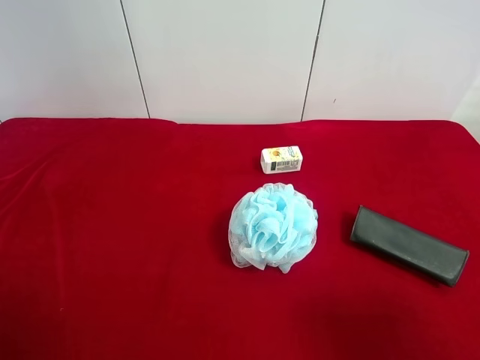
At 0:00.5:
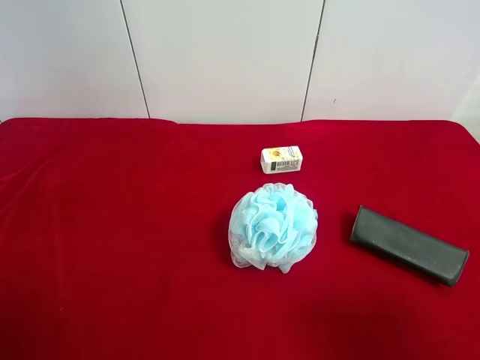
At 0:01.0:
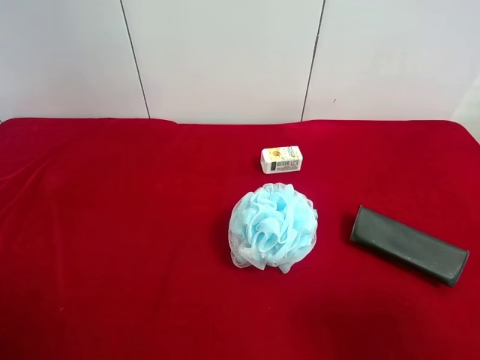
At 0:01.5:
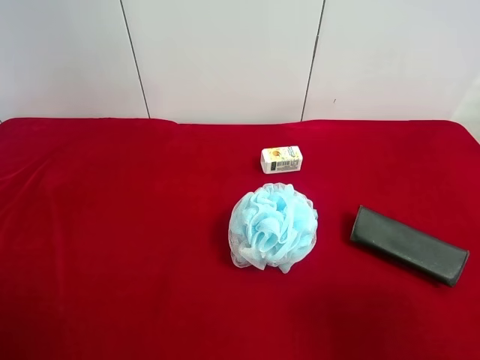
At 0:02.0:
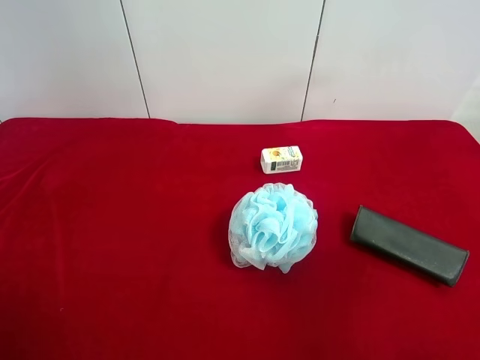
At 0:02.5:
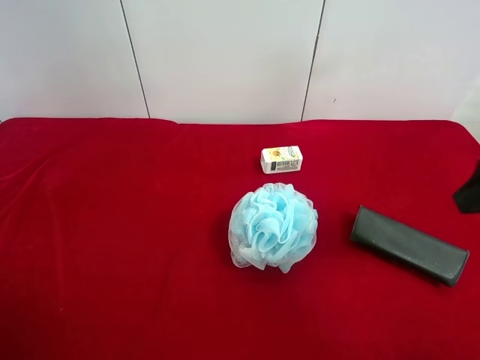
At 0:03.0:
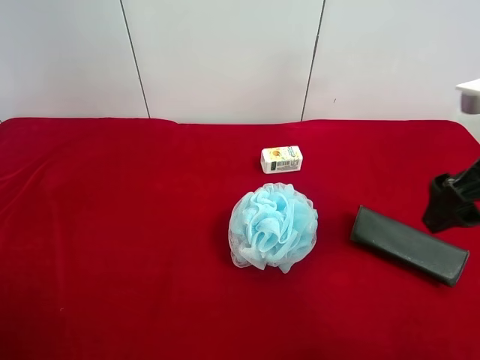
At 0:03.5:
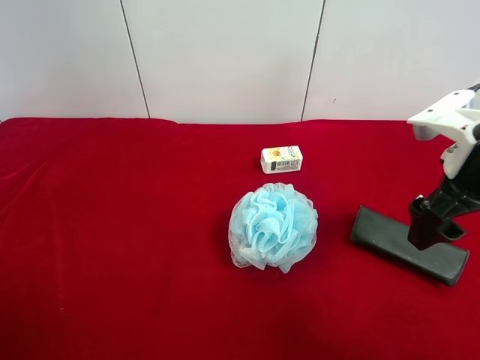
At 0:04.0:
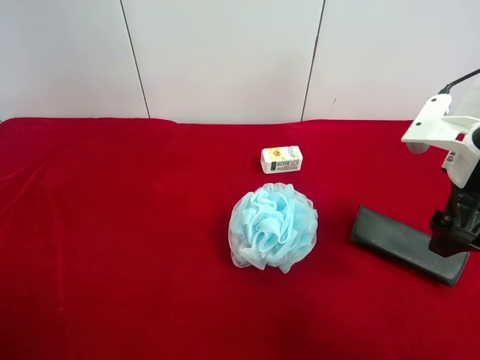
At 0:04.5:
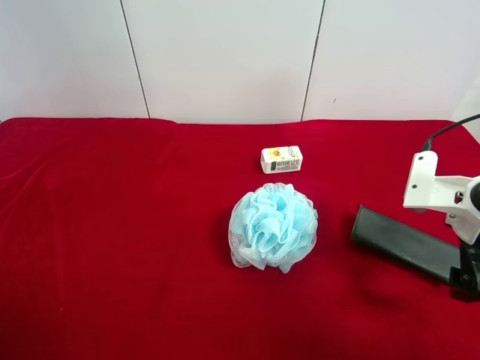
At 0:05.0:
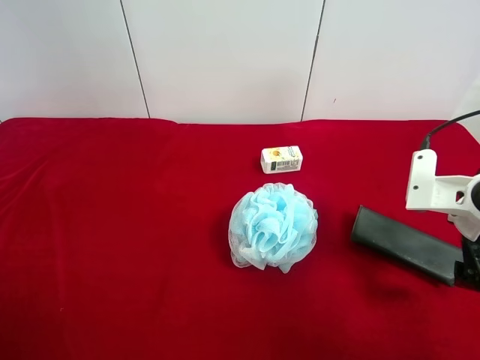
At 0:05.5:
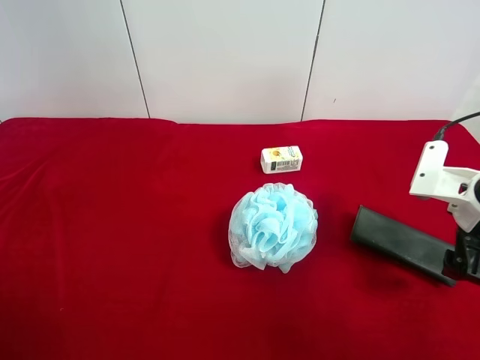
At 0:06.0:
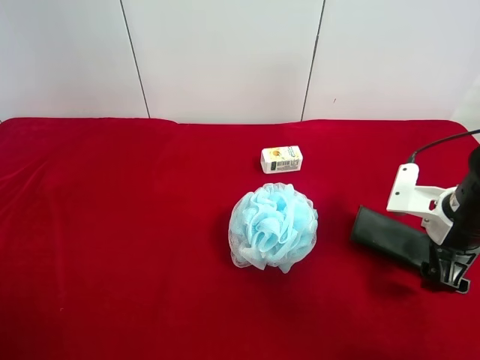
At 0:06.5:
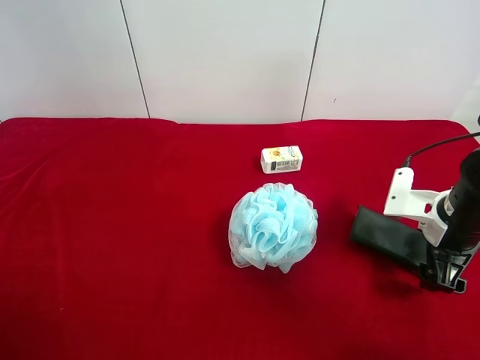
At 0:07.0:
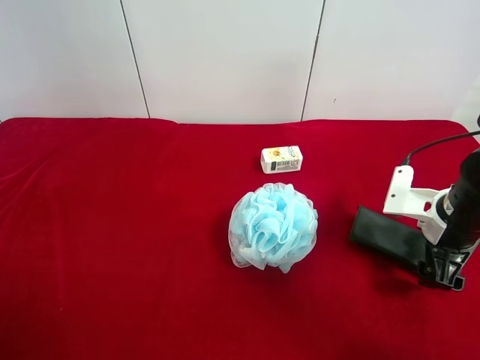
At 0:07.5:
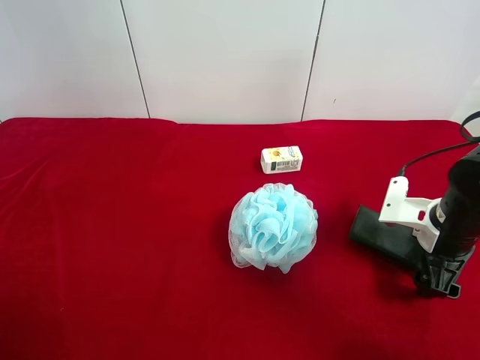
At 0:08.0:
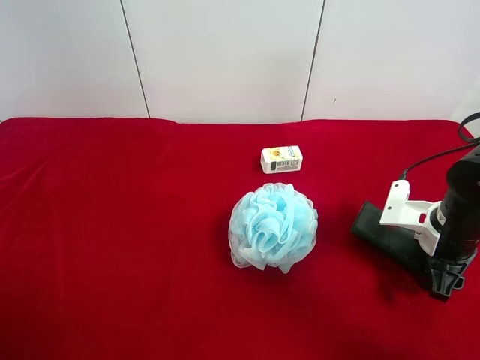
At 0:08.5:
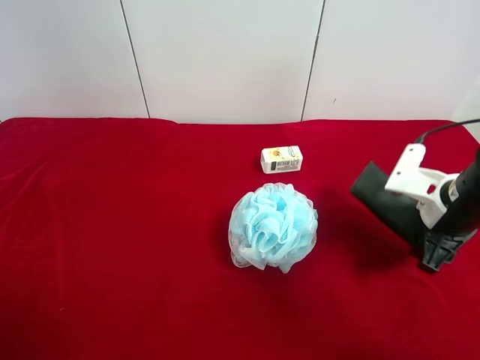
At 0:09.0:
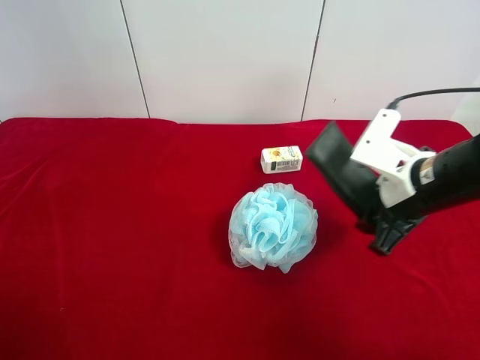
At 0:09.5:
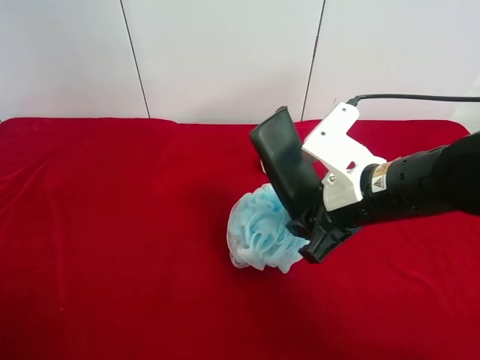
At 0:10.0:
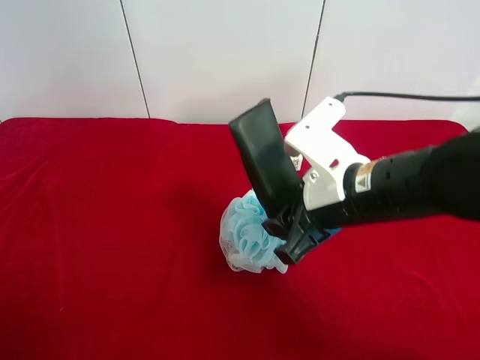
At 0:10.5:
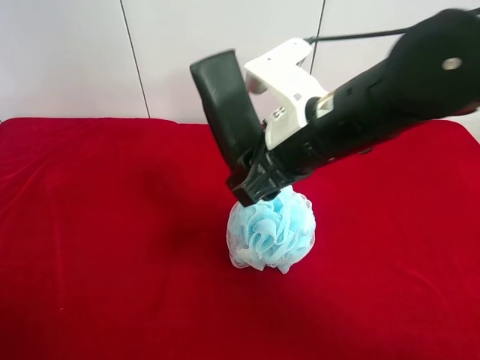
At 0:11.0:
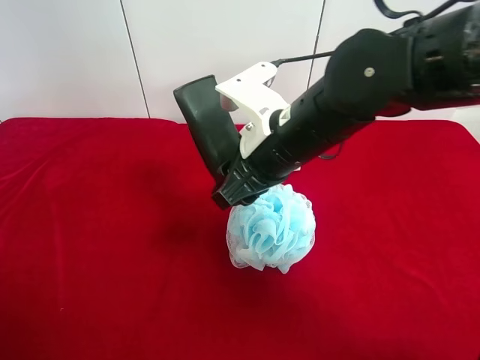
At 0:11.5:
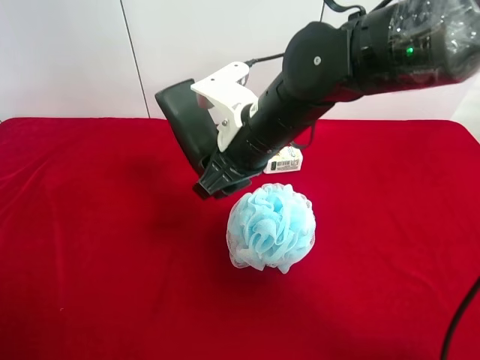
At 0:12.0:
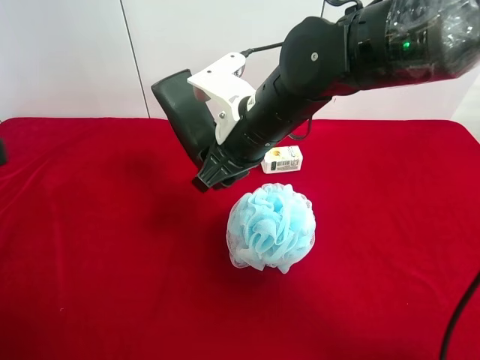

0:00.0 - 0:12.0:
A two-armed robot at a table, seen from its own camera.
Task of the whole recording: use the right gripper to pick up the item and transfer it from the right gripper to the left gripper.
Step, 0:00.0 - 0:07.5: Use the right gripper to grab the eyeglass case on the right side of the table.
0:02.0 - 0:04.0: The right gripper moves forward and downward, about 15 cm.
0:04.0 - 0:06.0: The right gripper is displaced downward by approximately 10 cm.
0:06.0 - 0:08.0: The right gripper closes.
0:08.0 - 0:10.0: The right gripper is displaced to the left and upward by about 20 cm.
0:10.0 - 0:12.0: The right gripper travels forward and to the left by some 10 cm; the left gripper heads forward, covering some 10 cm.

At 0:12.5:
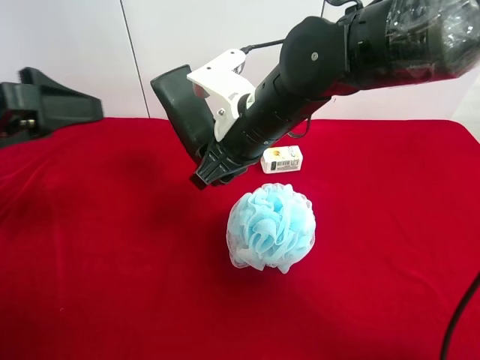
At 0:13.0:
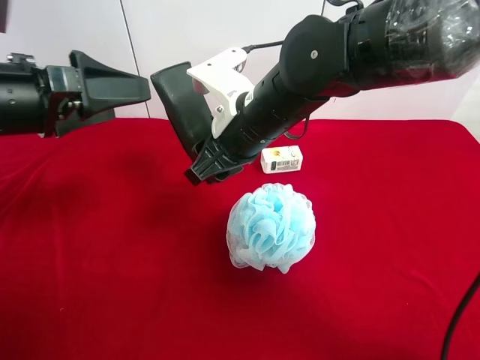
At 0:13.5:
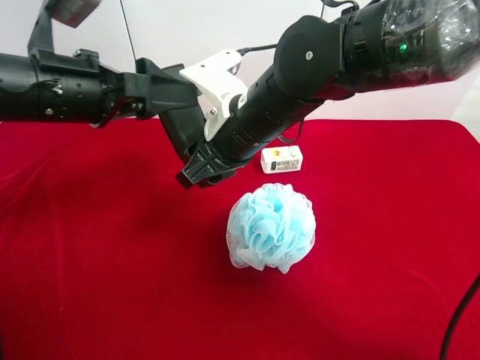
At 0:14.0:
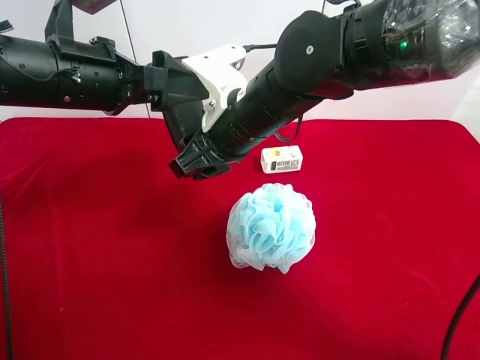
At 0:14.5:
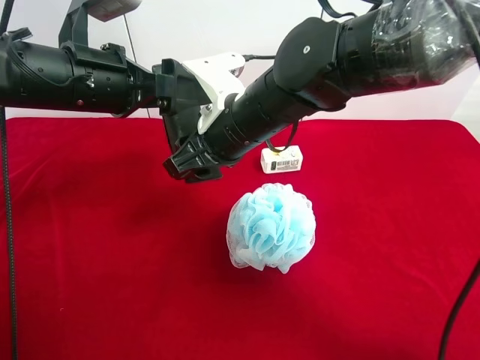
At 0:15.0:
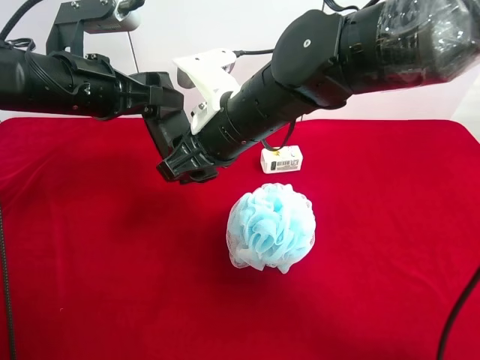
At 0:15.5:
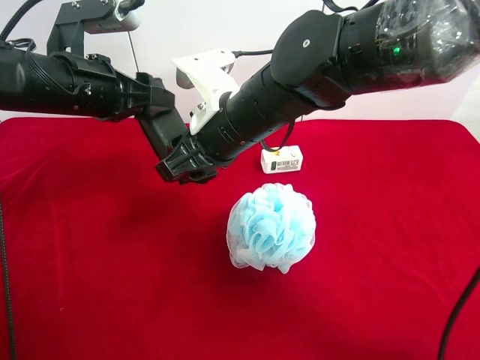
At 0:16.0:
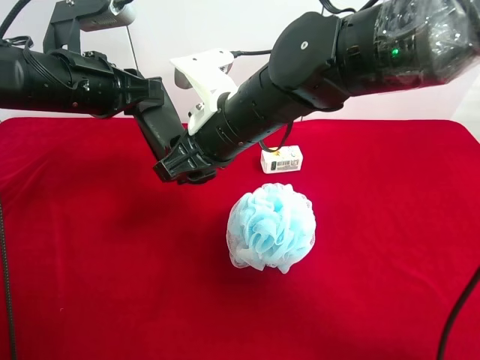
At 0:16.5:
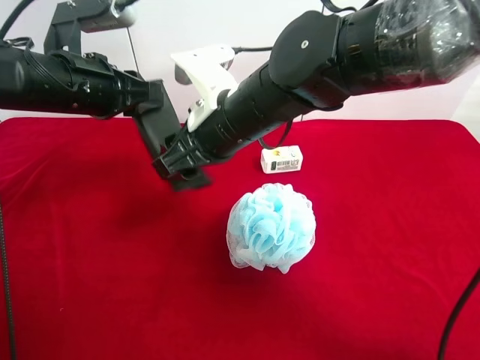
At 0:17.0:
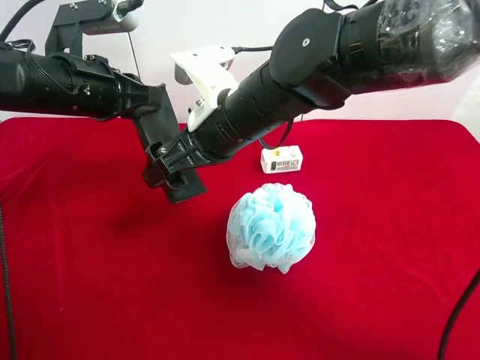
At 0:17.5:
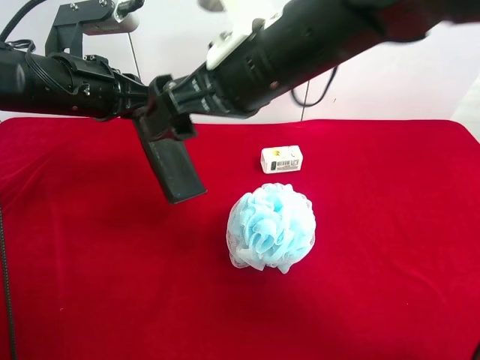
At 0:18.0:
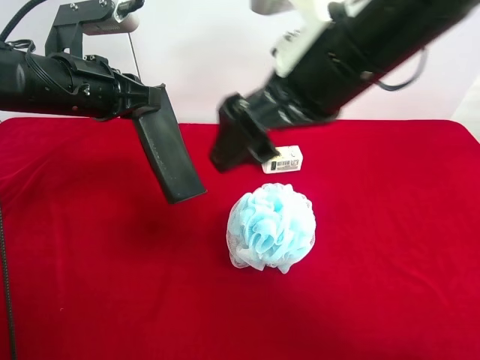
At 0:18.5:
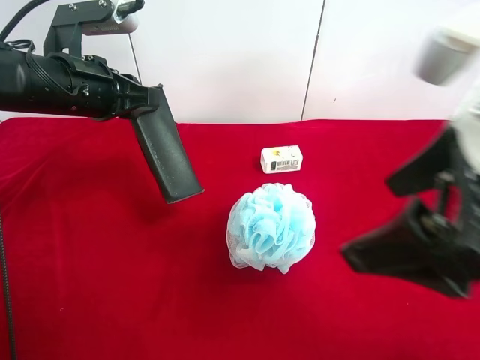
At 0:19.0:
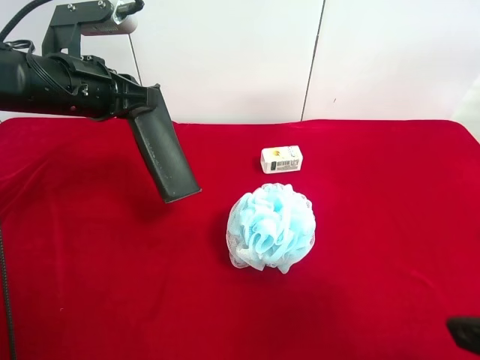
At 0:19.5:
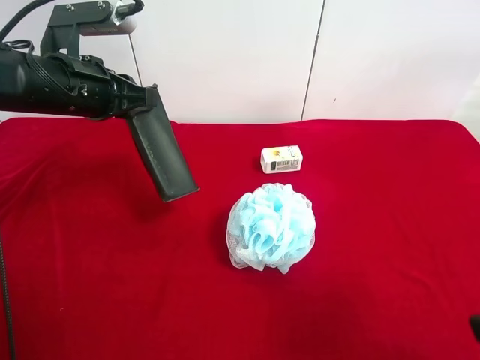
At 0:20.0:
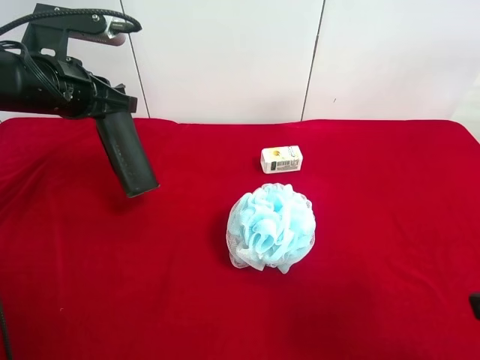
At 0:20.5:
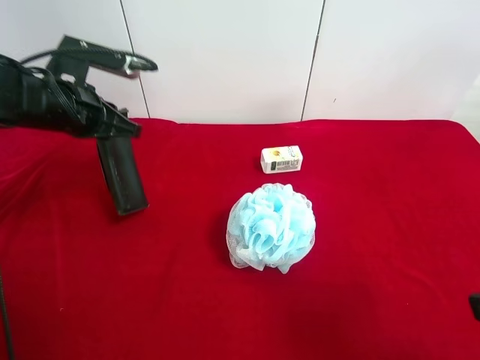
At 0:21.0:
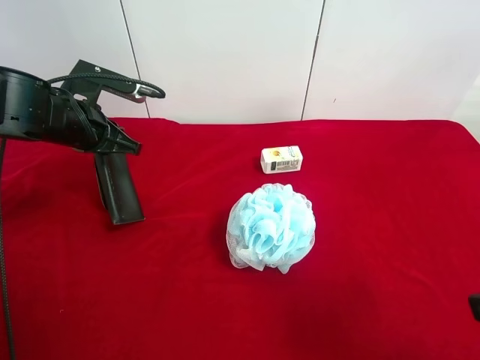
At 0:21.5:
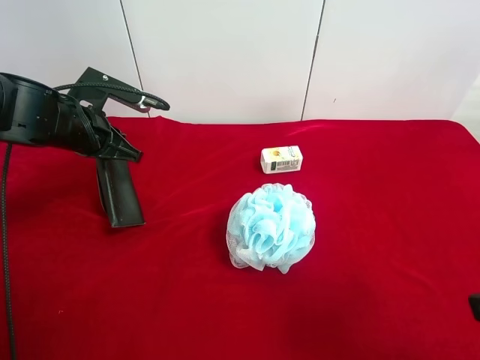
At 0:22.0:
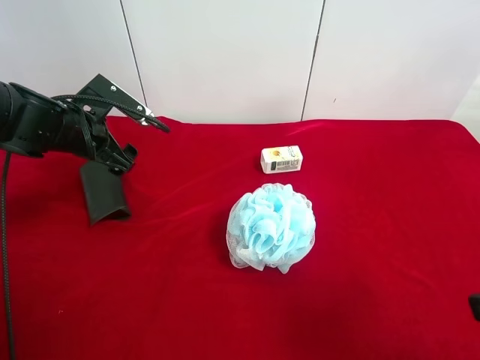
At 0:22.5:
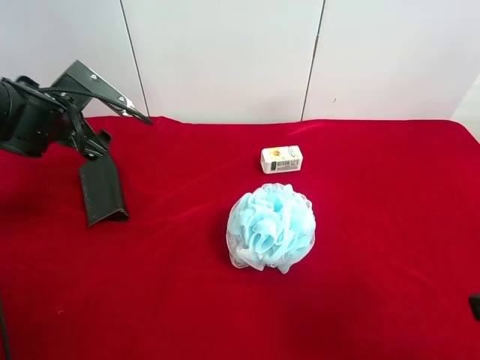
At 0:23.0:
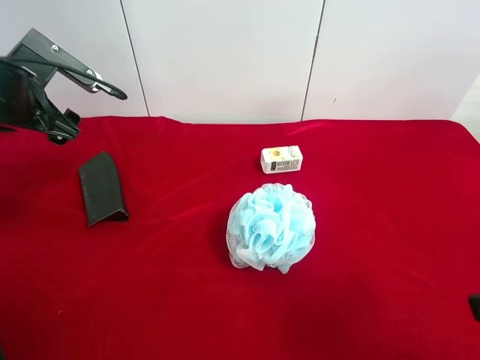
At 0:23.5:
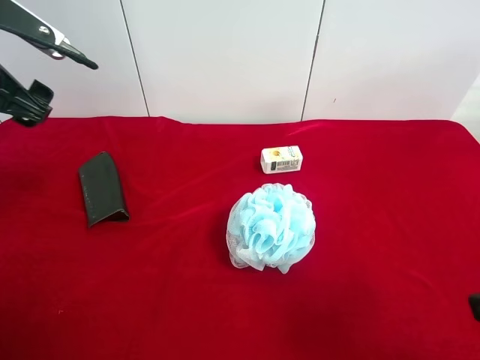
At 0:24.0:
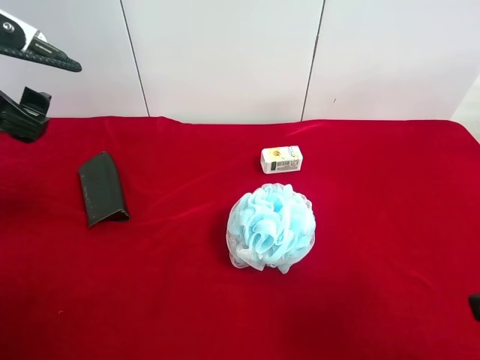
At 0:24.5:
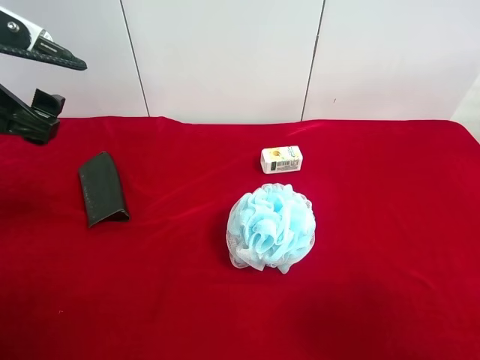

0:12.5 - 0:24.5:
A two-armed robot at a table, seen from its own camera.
Task of the whole recording: use the right gripper to pick up the item and transfer it from the right gripper to the left gripper.
Step, 0:12.5 - 0:16.5: Pass the eyeglass case to the left gripper.
Step, 0:17.0 - 0:22.0: The left gripper places eyeglass case on the left side of the table.
0:12.5 - 0:14.5: The left gripper goes about 10 cm forward and to the right.
0:14.5 - 0:16.5: The right gripper opens, while the left gripper closes.
0:16.5 - 0:18.5: The right gripper heads backward, to the right and upward, covering some 25 cm, and opens its fingers.
0:18.5 - 0:20.5: The left gripper moves roughly 5 cm; the right gripper heads to the right and backward, covering approximately 10 cm.
0:20.5 - 0:22.5: The left gripper opens its fingers.
0:22.5 - 0:24.5: The left gripper travels backward and upward by about 20 cm.

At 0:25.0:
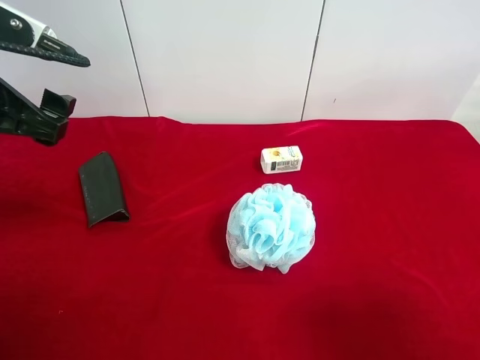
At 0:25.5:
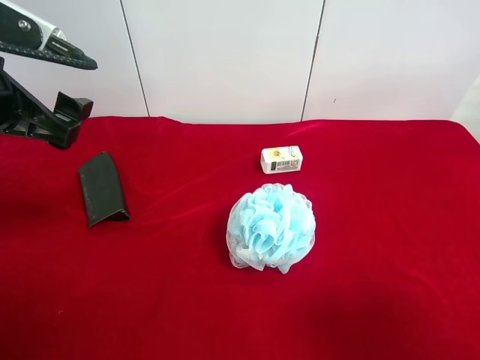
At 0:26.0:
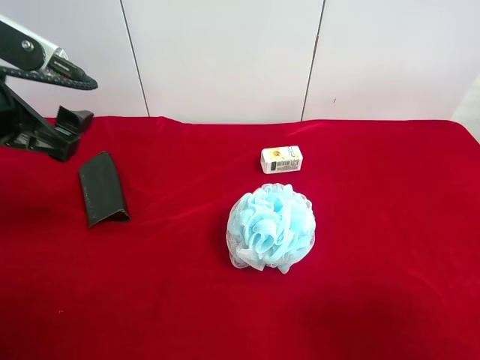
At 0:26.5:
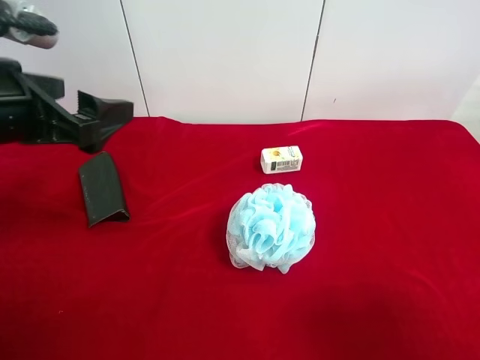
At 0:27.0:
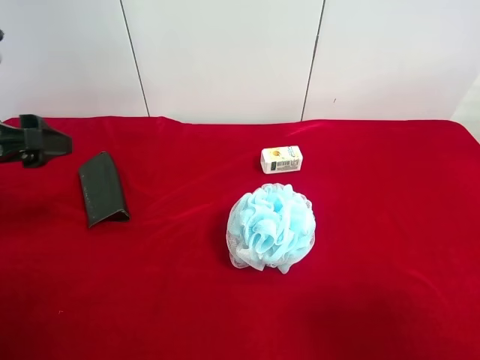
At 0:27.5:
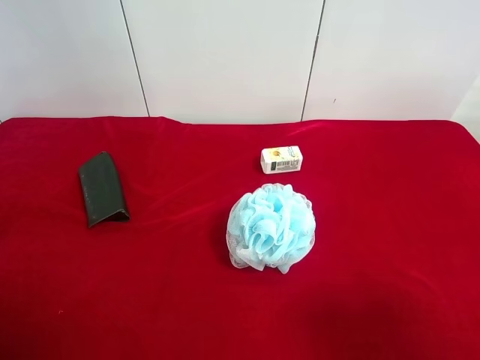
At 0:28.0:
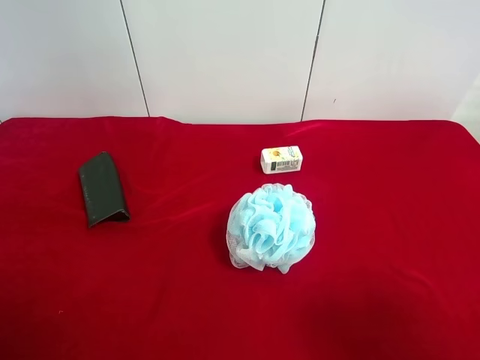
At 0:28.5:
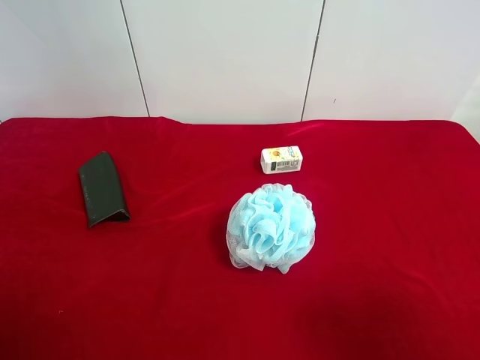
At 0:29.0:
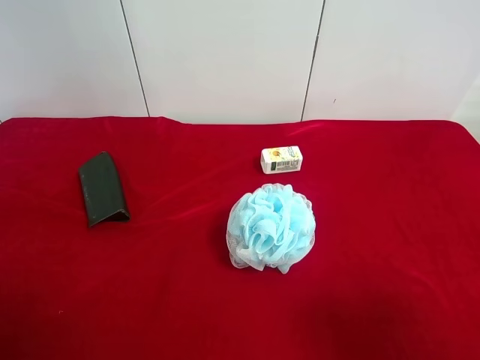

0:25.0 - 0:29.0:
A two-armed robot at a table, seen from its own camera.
Task of the whole recording: use the right gripper to pick up the item and transfer it from the right gripper to the left gripper.
0:25.0 - 0:27.0: The left gripper ends up roughly 5 cm from where it was.
0:27.0 - 0:29.0: The left gripper heads backward, covering approximately 20 cm.
